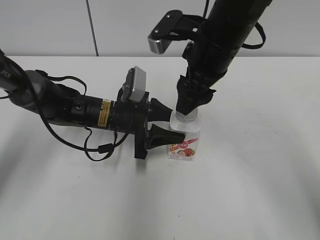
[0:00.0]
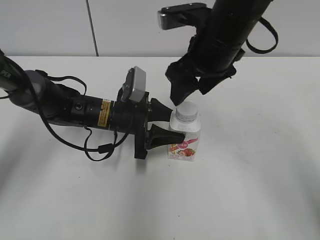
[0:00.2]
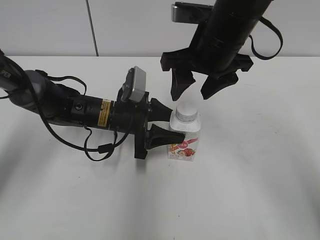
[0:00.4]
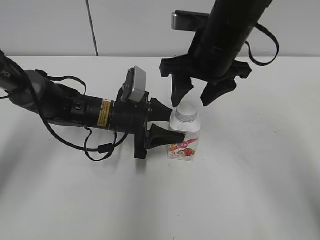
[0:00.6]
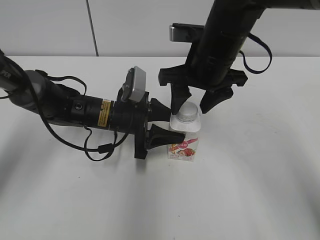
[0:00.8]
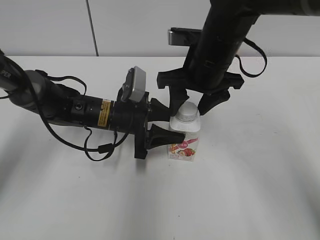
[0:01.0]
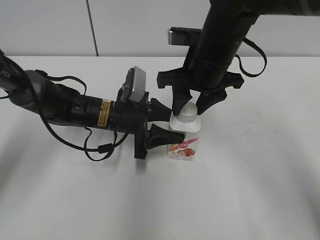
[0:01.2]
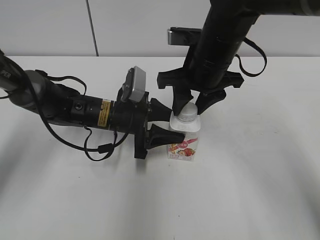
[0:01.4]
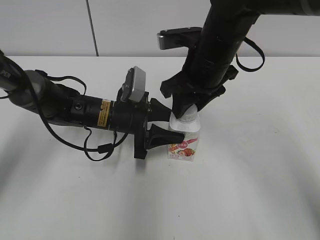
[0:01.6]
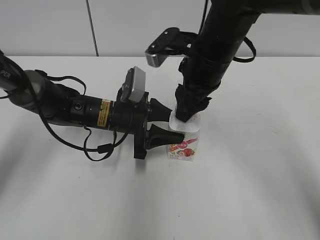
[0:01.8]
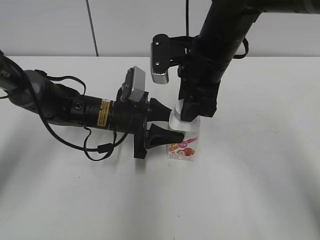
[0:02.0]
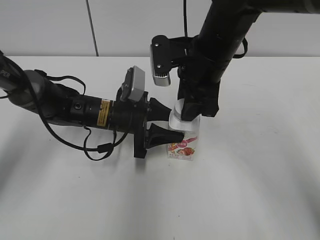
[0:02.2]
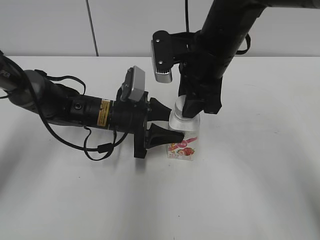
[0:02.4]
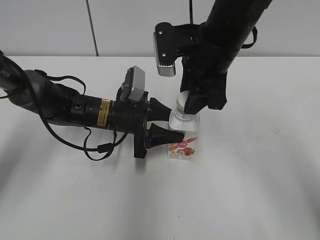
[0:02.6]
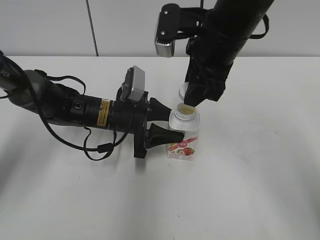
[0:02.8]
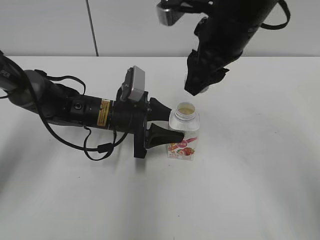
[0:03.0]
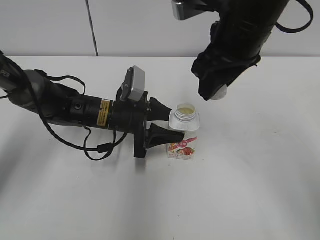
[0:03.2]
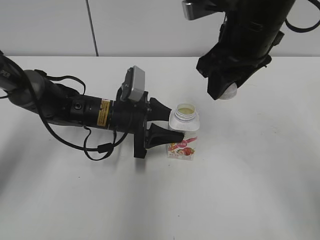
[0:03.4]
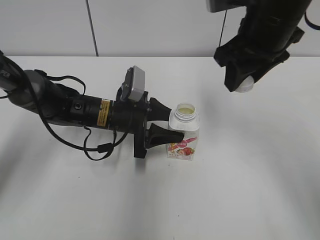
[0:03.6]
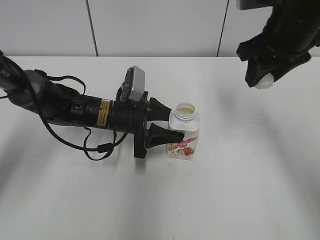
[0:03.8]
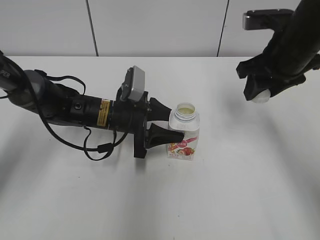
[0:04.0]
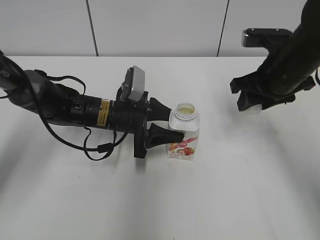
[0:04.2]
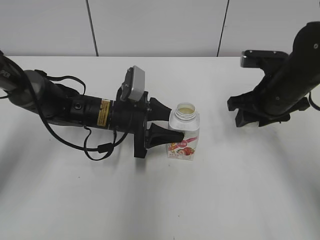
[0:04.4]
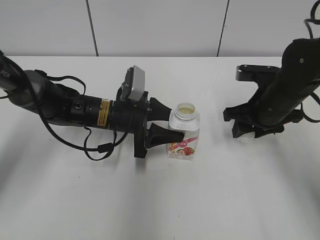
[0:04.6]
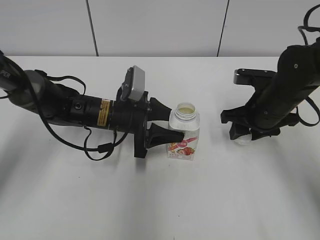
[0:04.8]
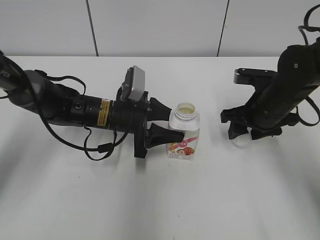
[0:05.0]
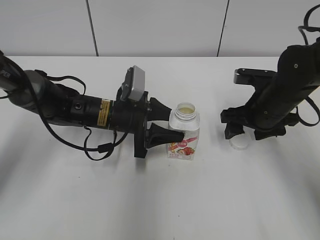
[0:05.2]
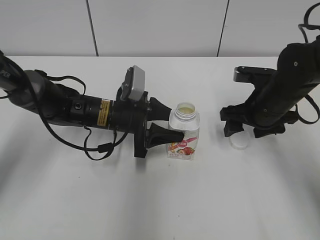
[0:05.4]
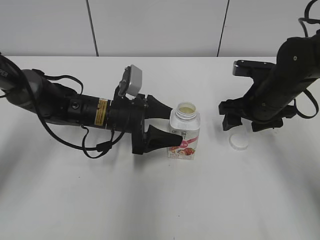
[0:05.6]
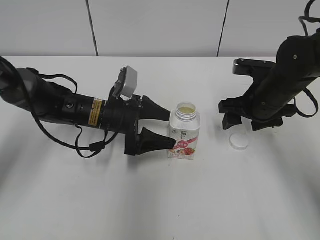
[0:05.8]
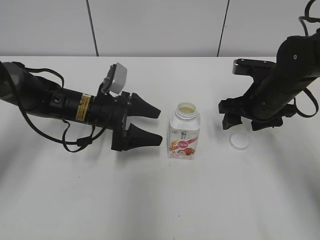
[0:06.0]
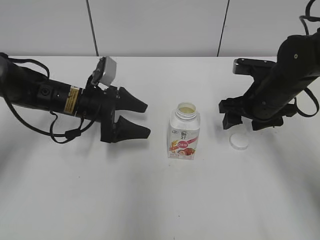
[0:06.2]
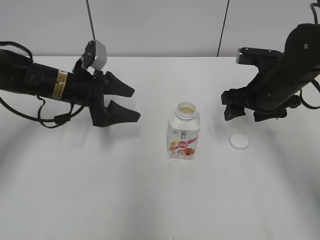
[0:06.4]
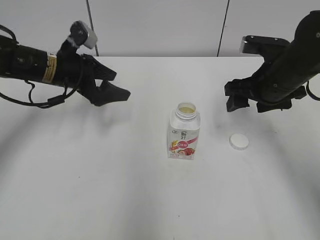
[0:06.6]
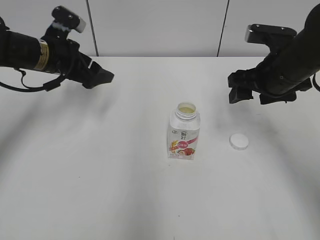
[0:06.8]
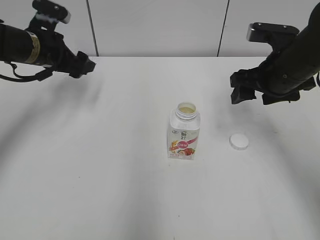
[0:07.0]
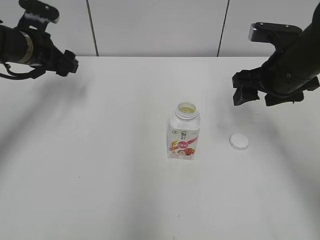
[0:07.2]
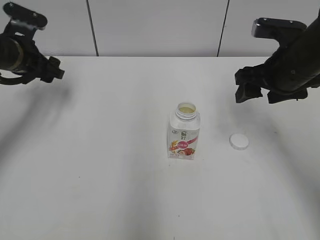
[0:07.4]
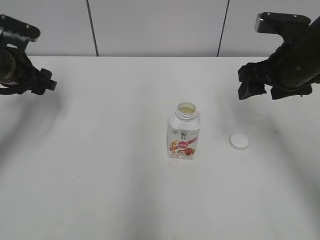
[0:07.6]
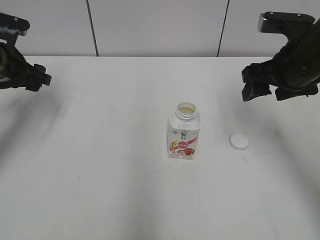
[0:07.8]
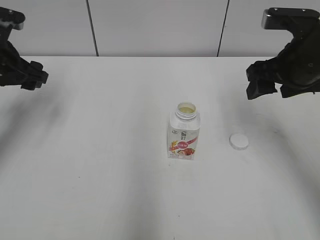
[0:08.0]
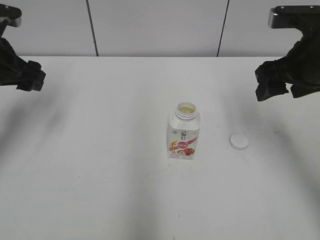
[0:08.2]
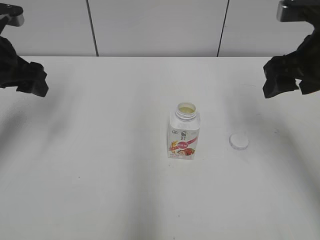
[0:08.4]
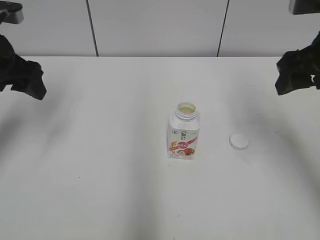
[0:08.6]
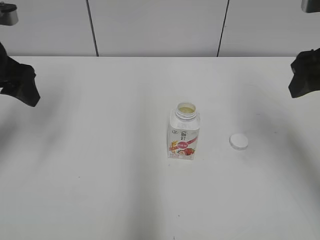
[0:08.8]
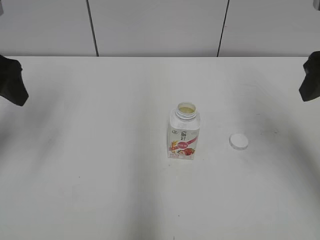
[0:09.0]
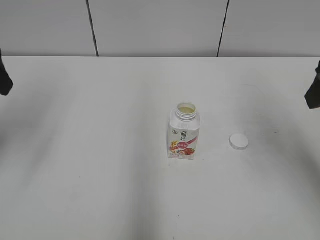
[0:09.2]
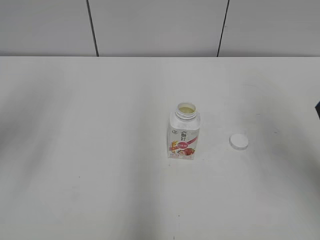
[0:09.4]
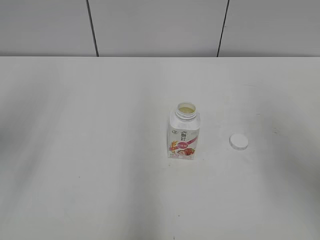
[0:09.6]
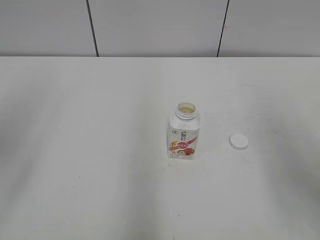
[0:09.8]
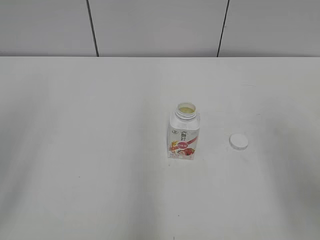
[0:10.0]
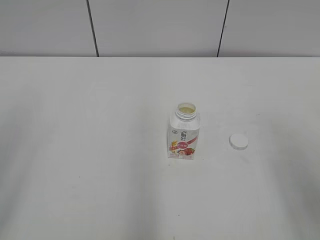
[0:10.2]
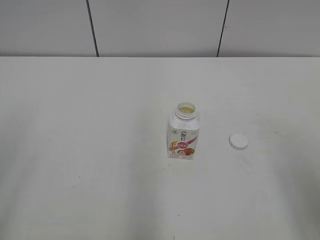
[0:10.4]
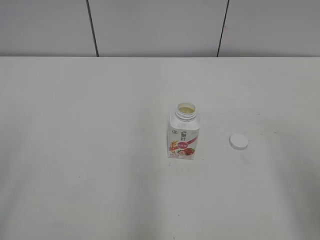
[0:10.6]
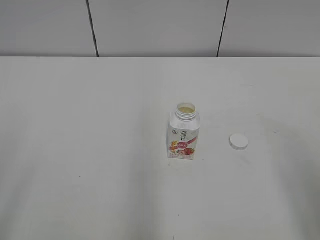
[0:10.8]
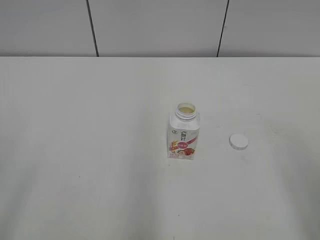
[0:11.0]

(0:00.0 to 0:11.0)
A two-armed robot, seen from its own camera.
Step, 0:02.8 - 0:05.0: Place the bottle cap on the right.
0:00.0 - 0:01.6: The right gripper closes its fingers.
0:01.6 - 0:03.2: The right gripper is displaced upward by roughly 5 cm.
0:03.2 - 0:04.8: The right gripper travels downward and to the right by about 20 cm.
0:04.8 - 0:06.2: The right gripper opens, while the left gripper is displaced to the left by about 5 cm, and opens its fingers.
0:06.2 - 0:07.8: The right gripper is displaced upward by approximately 10 cm, while the left gripper shifts approximately 15 cm to the left and upward.
0:07.8 - 0:09.4: The right gripper is displaced backward and upward by about 15 cm. The left gripper heads upward and backward, covering about 20 cm.
